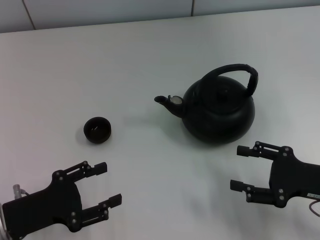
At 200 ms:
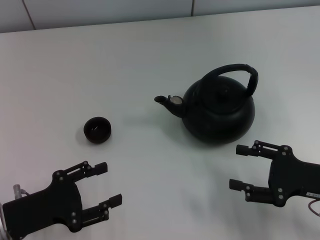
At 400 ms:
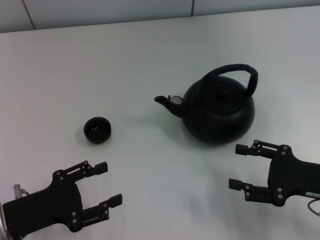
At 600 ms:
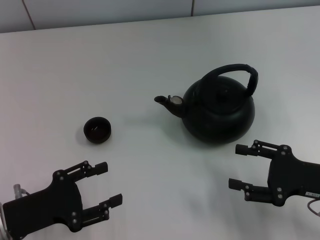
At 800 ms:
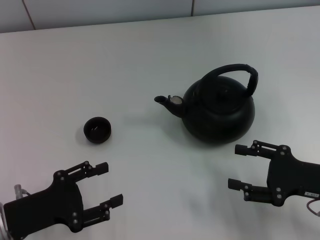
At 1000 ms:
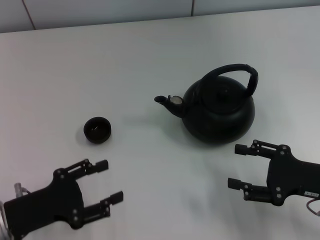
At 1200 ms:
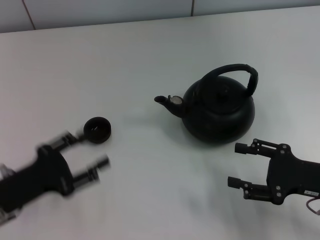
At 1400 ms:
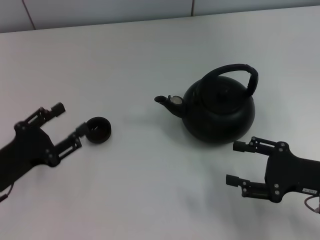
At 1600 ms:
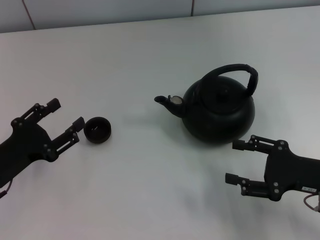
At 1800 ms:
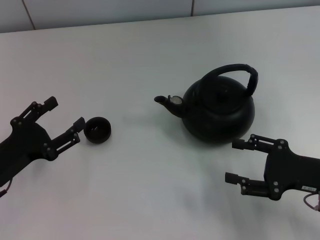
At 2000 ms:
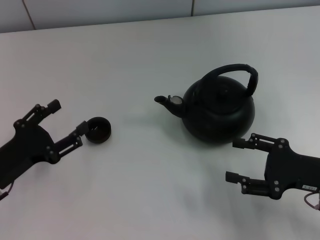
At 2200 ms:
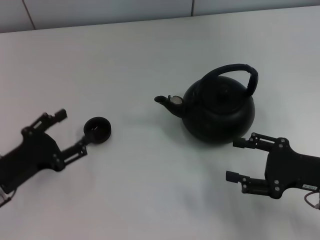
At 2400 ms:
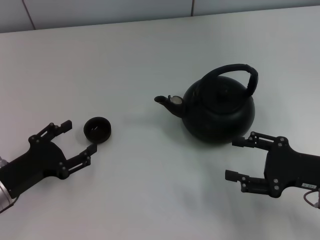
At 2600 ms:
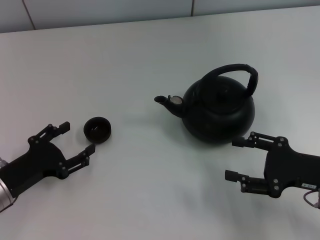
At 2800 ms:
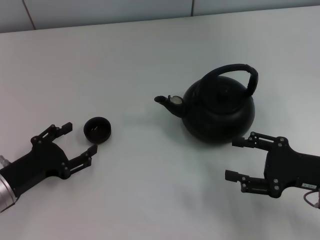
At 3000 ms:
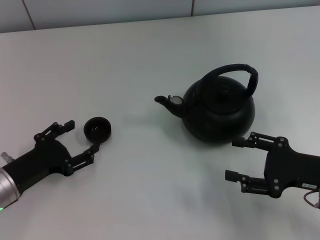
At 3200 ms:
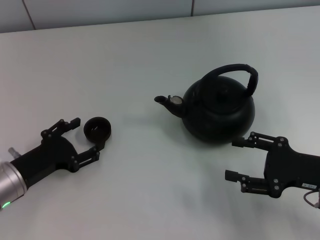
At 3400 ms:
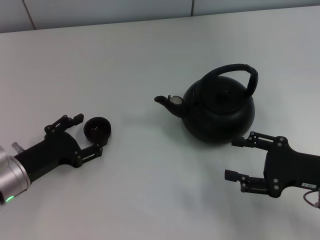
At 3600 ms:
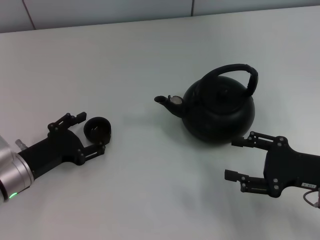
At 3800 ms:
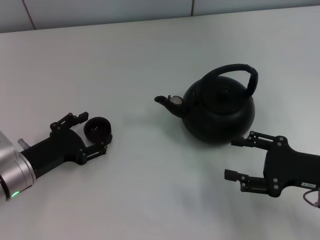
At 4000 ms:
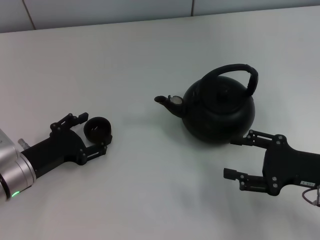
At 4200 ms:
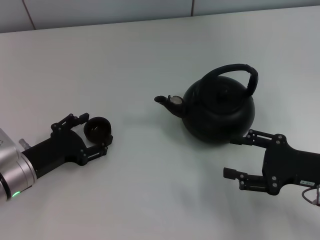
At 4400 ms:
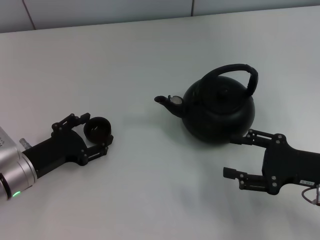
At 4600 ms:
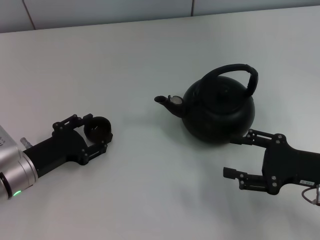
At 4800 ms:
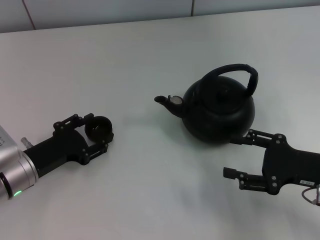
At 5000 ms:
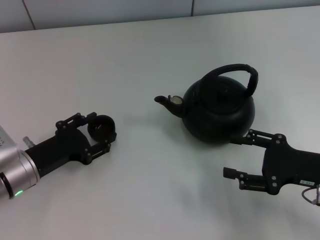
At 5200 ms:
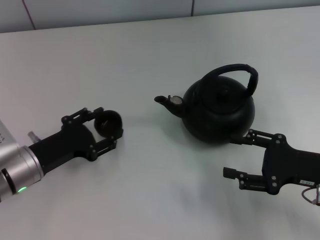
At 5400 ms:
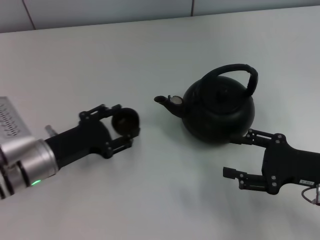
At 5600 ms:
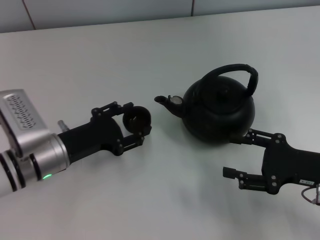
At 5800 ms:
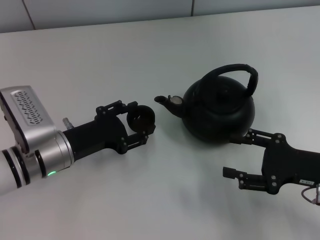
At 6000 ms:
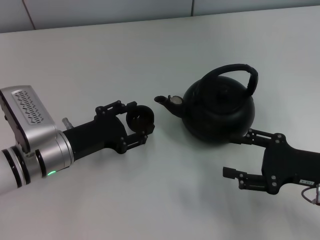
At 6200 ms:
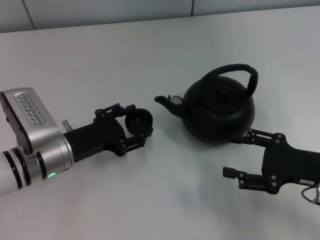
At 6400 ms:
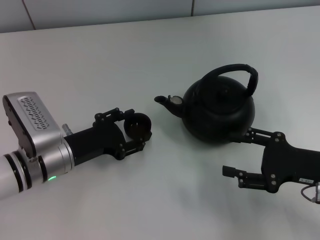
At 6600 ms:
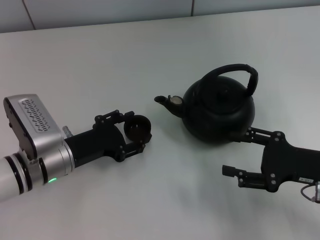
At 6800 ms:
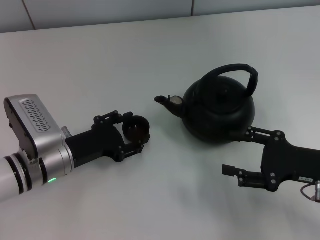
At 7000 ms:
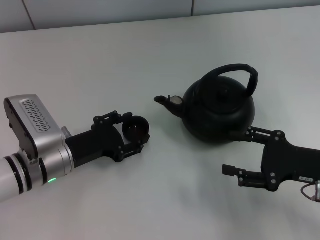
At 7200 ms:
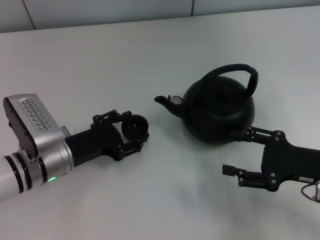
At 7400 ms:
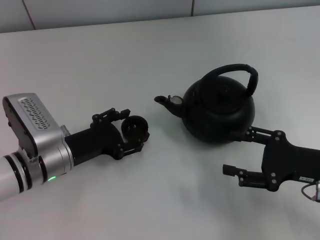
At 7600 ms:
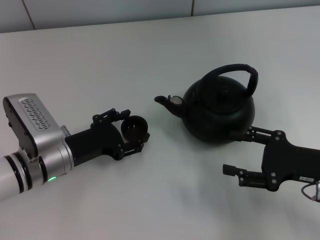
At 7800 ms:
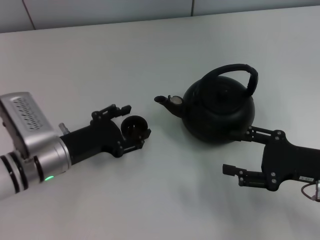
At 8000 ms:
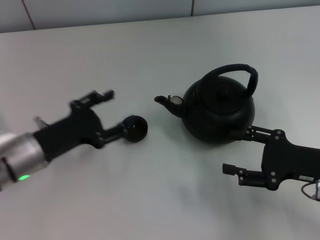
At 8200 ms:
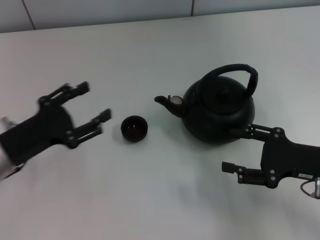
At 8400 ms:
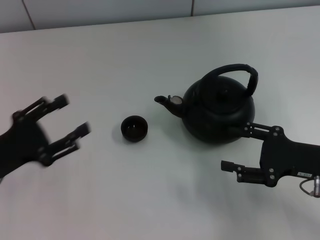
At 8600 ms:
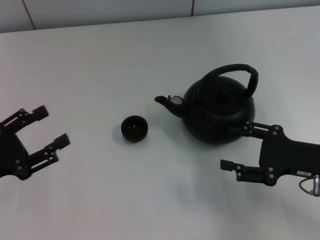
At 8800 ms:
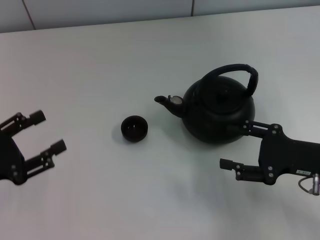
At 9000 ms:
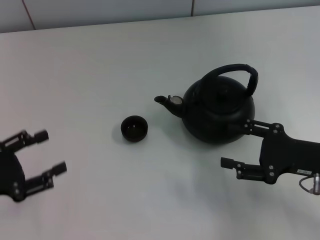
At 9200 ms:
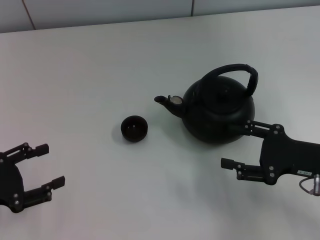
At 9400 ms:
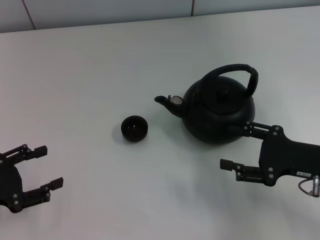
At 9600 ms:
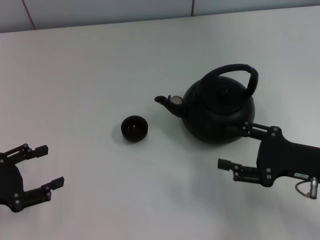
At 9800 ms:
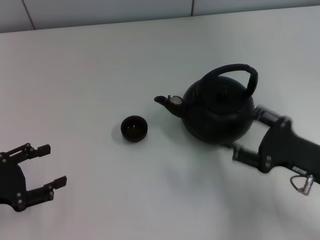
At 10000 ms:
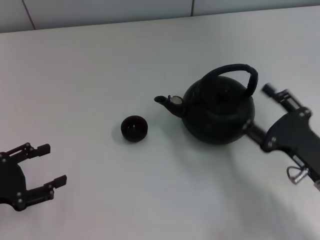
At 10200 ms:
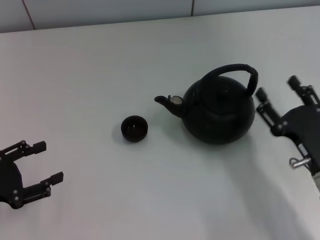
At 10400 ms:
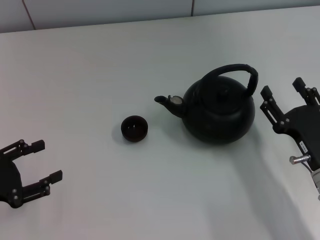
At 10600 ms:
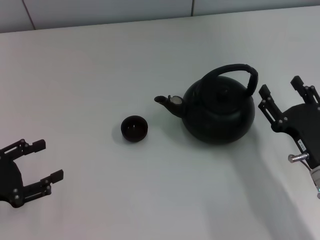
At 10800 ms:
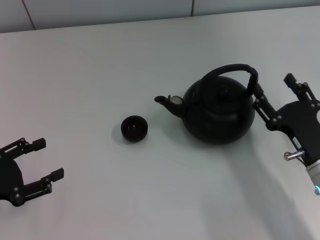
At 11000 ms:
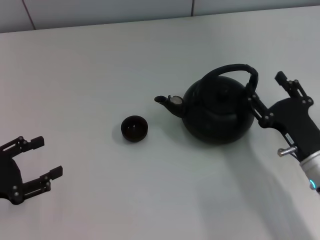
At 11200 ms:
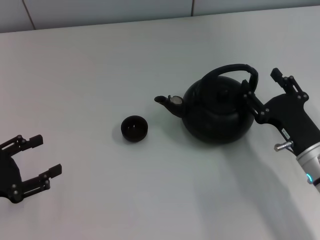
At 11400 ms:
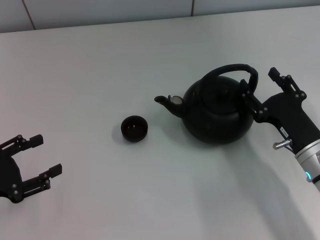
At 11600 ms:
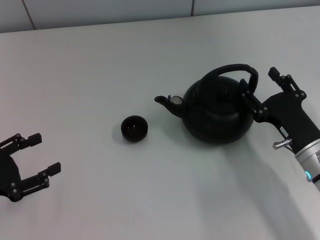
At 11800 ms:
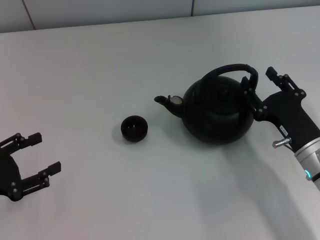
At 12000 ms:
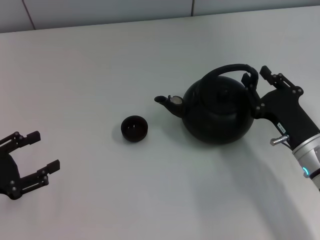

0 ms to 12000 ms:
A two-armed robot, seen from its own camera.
Task of the whole recording: Grasp the handle of the teapot with one hand and pour tea into the teacup.
Step, 0 ms to 5800 ms: Pick up the teacup with the left gripper.
Step, 6000 ms to 8000 ms: Place the teacup in the center of view with the left gripper.
1600 ms to 3000 ms: The left gripper opens.
3000 ms to 4400 ms: The grippers stay close to where they were, moving slightly.
4400 ms to 6000 ms: The left gripper is displaced to the right by roughly 5 cm, and closes its fingers.
6000 ms to 7600 ms: The grippers move only a little.
7600 ms to 9000 ms: The left gripper heads to the left and backward, covering some 15 cm.
9000 ms to 10400 ms: The right gripper moves some 5 cm.
10400 ms to 12000 ms: The grippers stay close to where they were, moving slightly.

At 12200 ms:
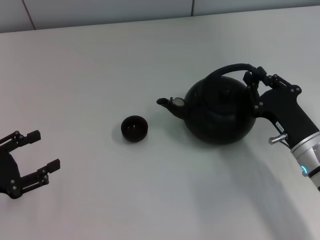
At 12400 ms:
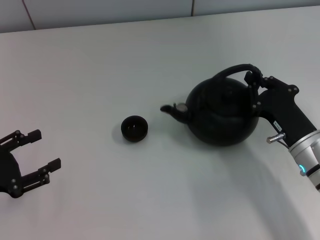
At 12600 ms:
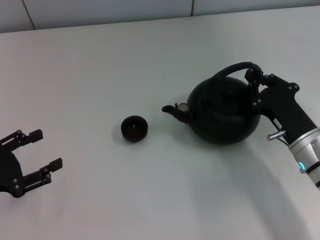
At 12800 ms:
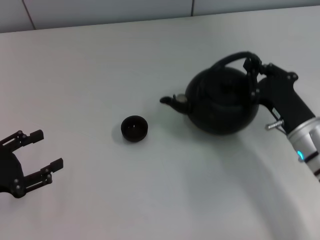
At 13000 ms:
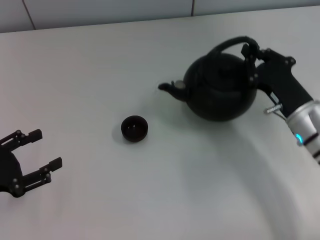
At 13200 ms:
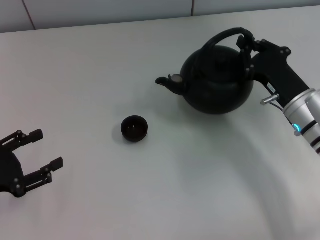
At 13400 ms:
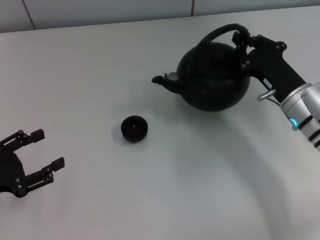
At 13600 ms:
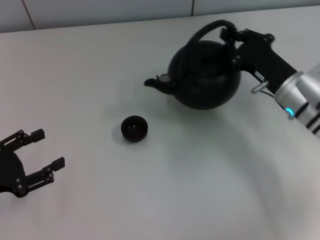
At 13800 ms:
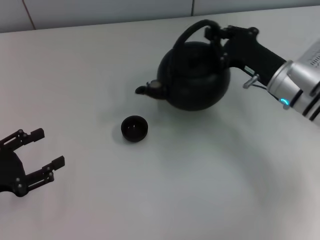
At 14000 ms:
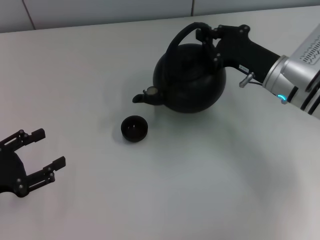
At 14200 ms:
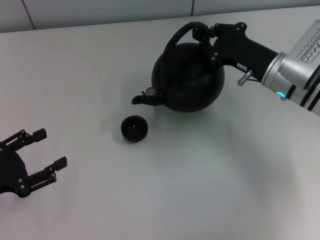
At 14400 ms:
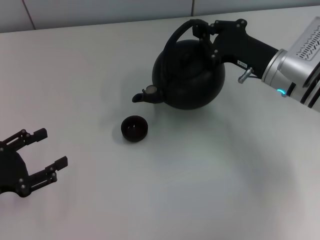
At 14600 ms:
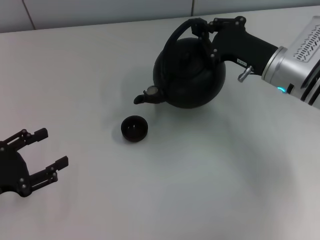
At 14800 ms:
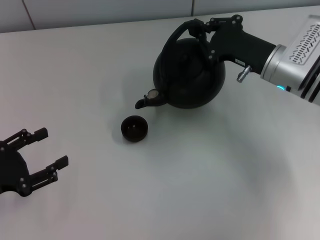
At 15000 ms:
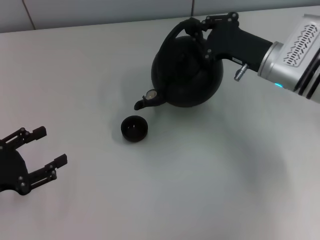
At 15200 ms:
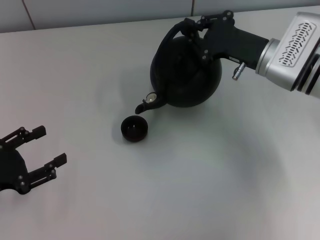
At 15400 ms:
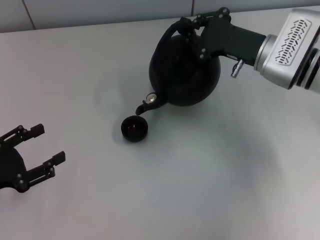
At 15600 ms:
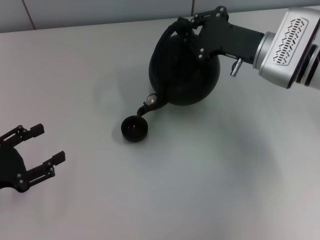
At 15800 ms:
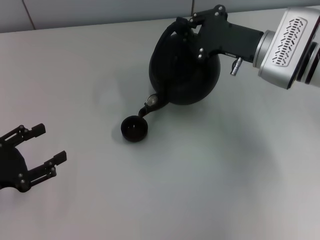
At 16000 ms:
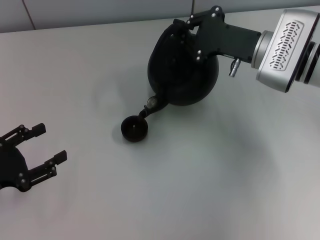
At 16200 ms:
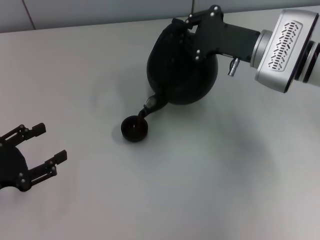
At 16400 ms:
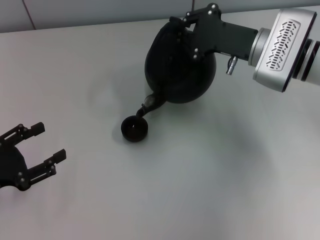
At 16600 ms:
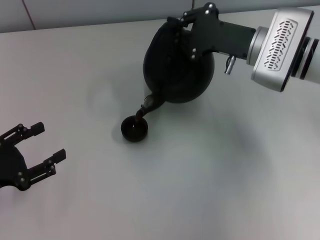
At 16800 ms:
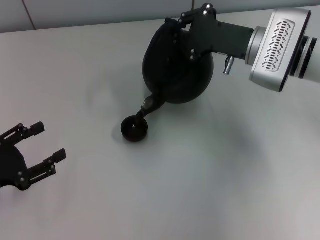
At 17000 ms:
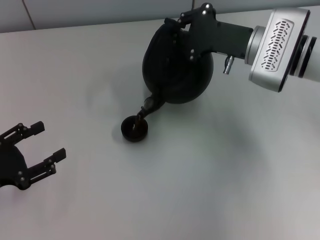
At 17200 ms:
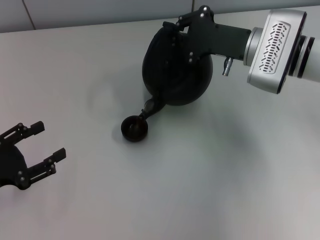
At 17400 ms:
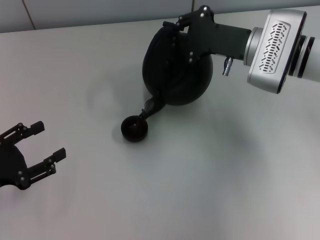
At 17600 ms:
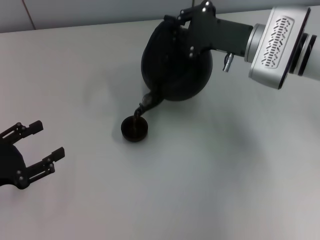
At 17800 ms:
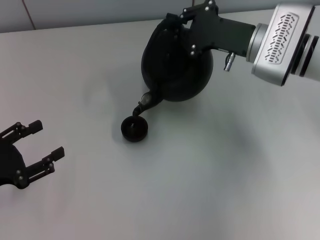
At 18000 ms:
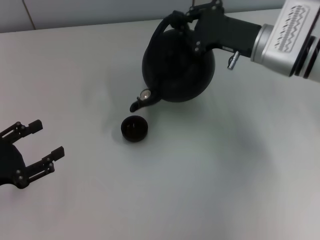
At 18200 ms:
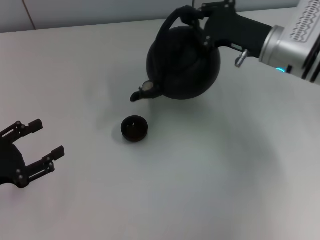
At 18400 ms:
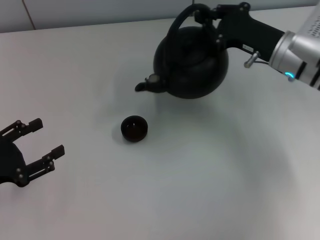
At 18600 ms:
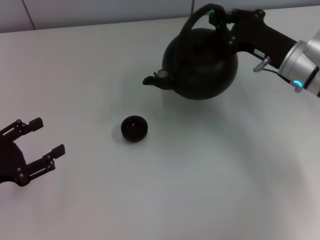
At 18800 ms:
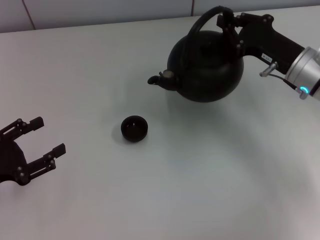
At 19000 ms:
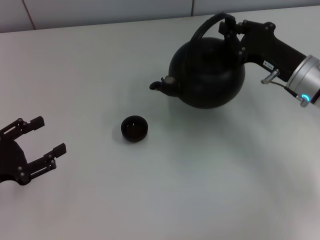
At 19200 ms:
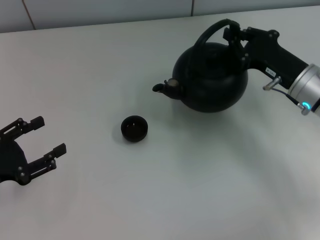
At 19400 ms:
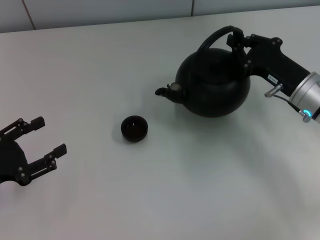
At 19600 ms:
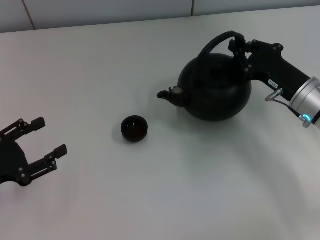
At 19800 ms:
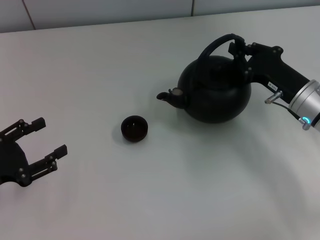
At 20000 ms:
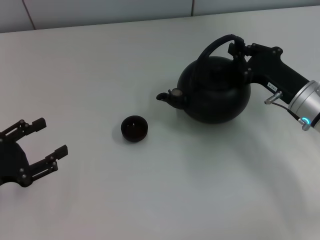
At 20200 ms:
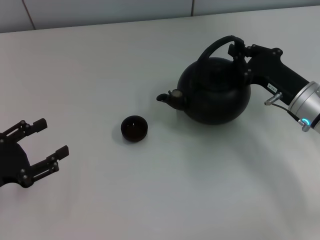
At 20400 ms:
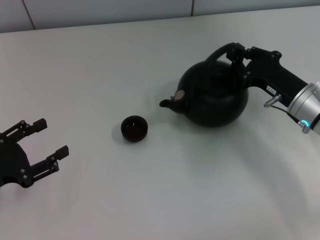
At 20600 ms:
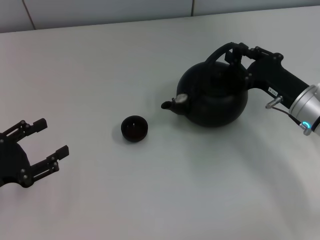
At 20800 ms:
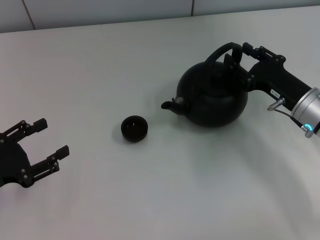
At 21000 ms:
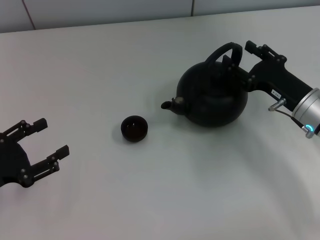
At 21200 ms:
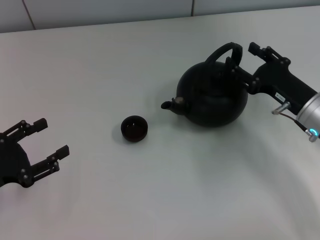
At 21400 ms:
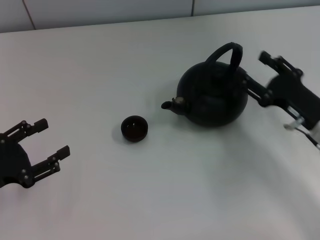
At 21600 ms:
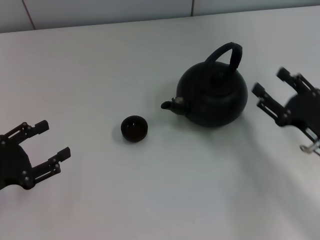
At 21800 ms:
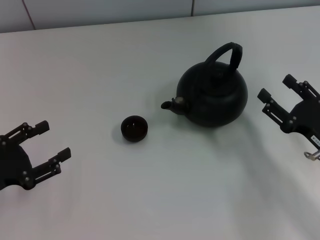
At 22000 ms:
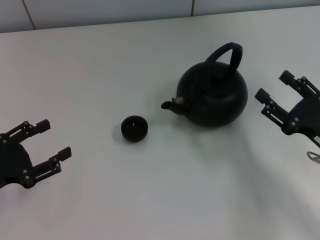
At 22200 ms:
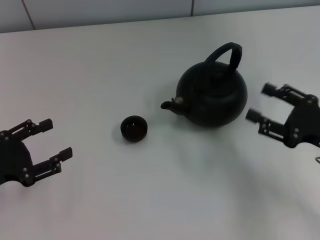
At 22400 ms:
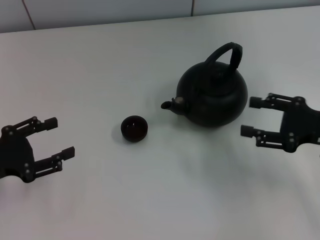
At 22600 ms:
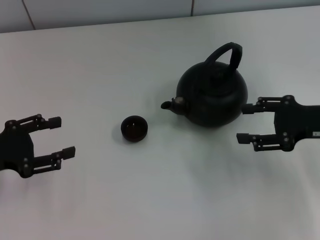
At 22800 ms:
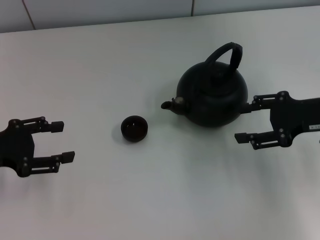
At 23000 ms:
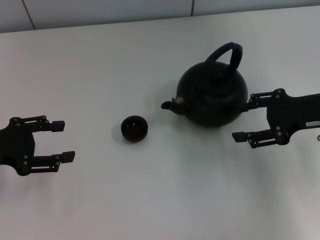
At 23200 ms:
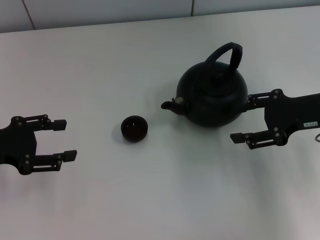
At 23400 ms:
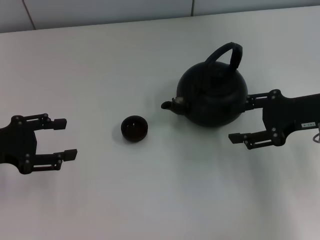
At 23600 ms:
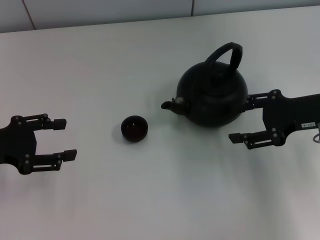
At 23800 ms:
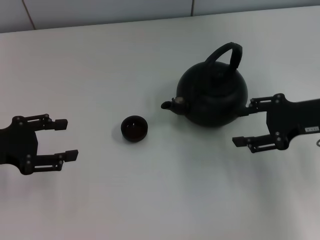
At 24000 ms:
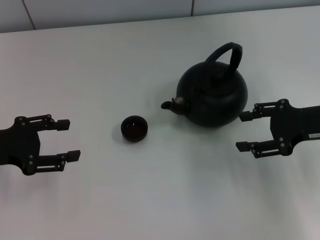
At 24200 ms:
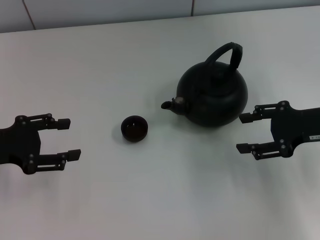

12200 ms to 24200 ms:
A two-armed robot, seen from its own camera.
Task of the whole recording: Grasp the handle of the teapot with one hand and pour tea into the teacup.
Step, 18600 ms to 21200 ms: Put down the teapot with the right gripper.
12200 ms to 13800 ms: The right gripper is displaced forward and upward by roughly 10 cm, and closes up.
15200 ms to 16600 ms: There are only small adjustments of the grippers.
18200 ms to 19800 ms: The right gripper moves backward and downward, some 10 cm.
19800 ms to 21200 ms: The right gripper opens up.
21200 ms to 22600 ms: The left gripper ends up approximately 5 cm from where it was, while the right gripper goes about 5 cm upward, and travels backward and back again, approximately 10 cm each way.
22600 ms to 24200 ms: The grippers stay close to where they were, moving slightly.
